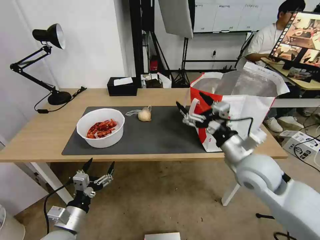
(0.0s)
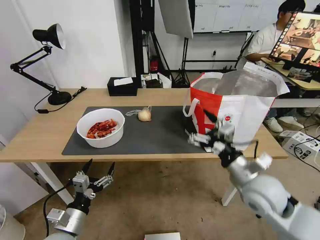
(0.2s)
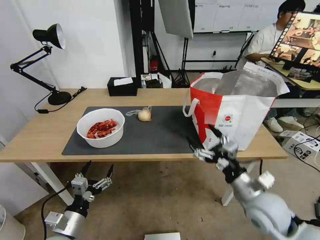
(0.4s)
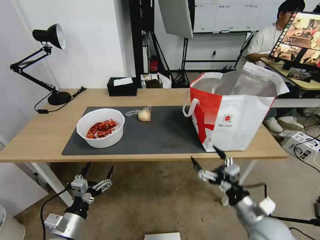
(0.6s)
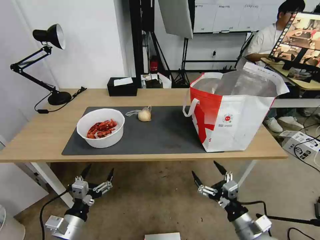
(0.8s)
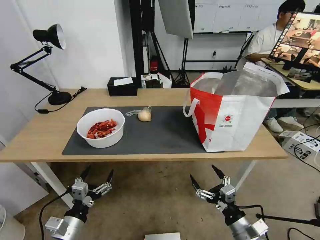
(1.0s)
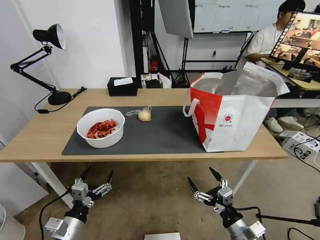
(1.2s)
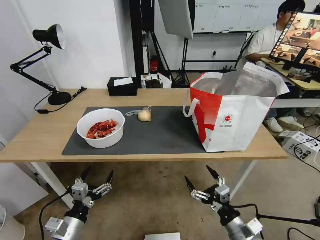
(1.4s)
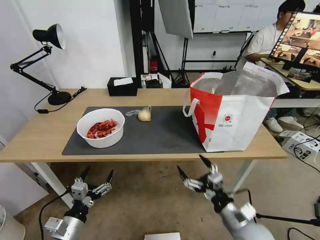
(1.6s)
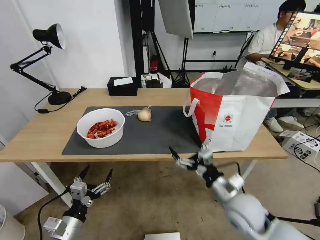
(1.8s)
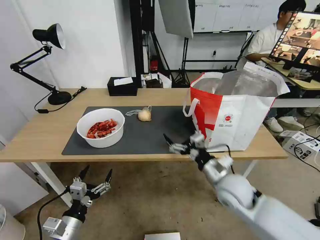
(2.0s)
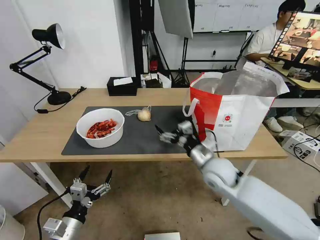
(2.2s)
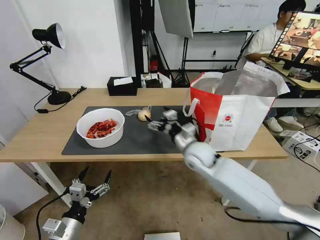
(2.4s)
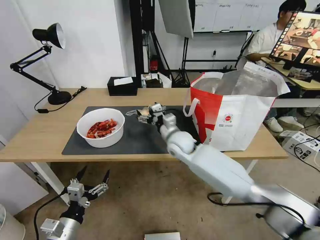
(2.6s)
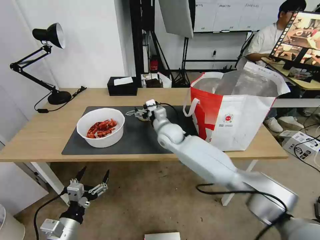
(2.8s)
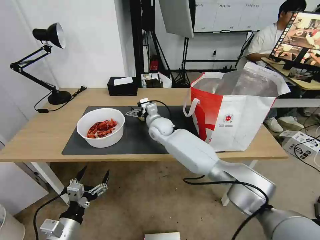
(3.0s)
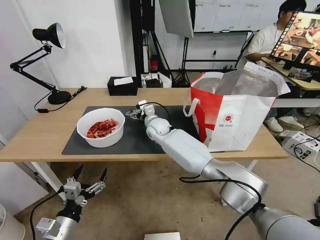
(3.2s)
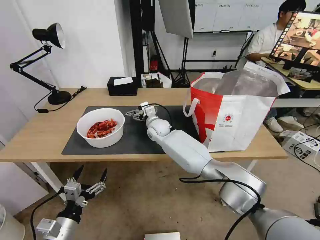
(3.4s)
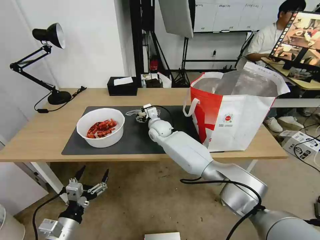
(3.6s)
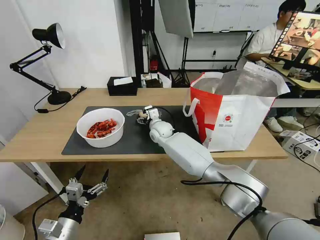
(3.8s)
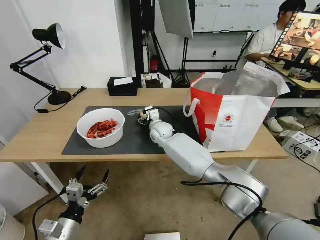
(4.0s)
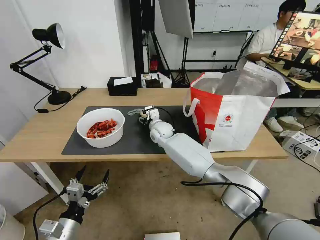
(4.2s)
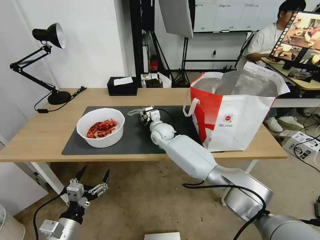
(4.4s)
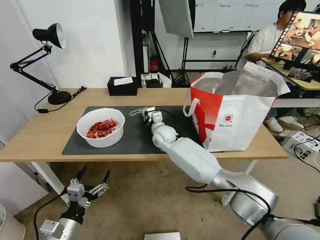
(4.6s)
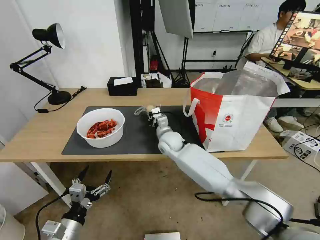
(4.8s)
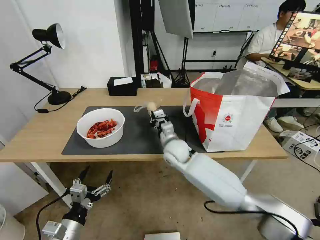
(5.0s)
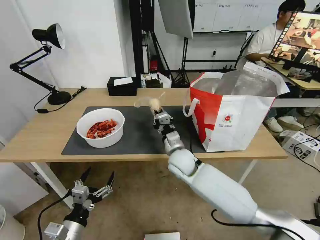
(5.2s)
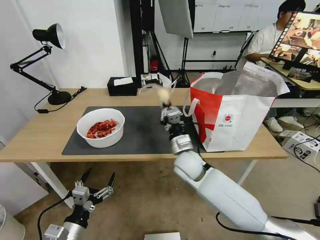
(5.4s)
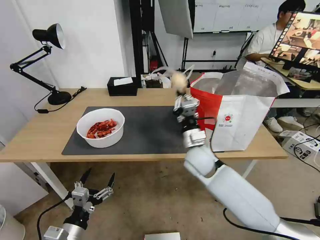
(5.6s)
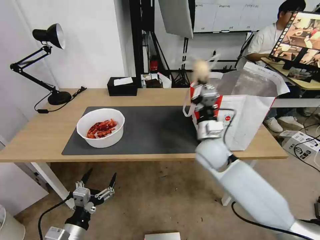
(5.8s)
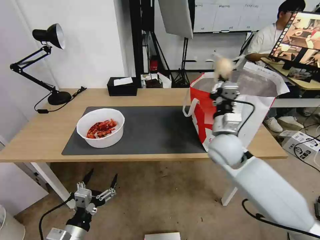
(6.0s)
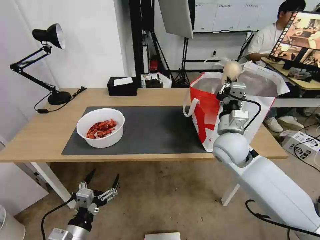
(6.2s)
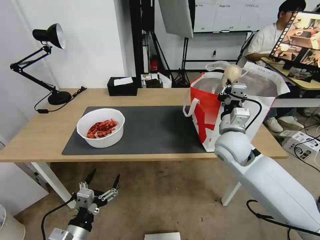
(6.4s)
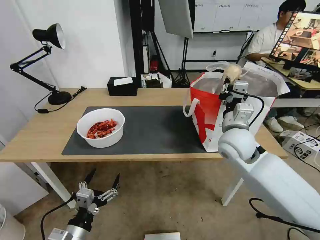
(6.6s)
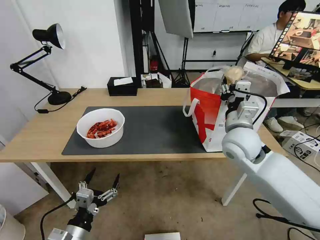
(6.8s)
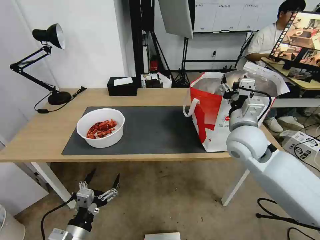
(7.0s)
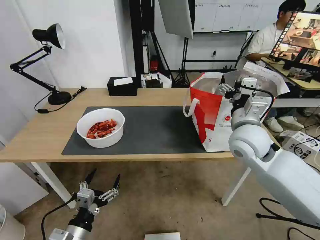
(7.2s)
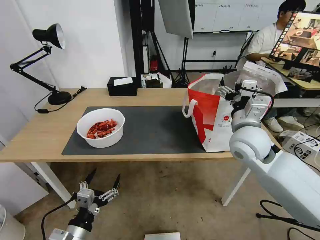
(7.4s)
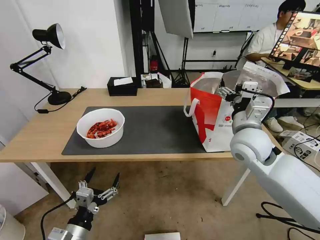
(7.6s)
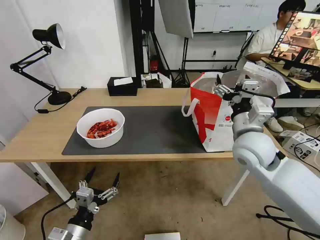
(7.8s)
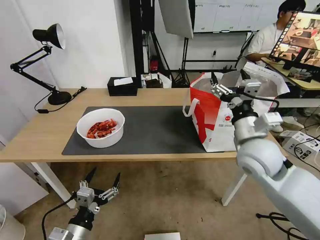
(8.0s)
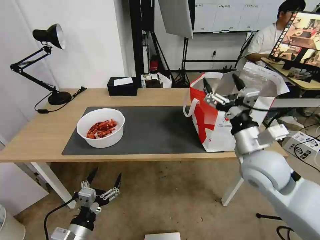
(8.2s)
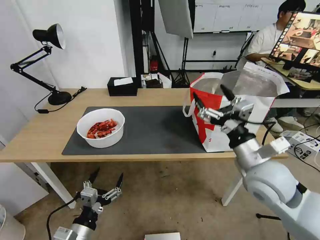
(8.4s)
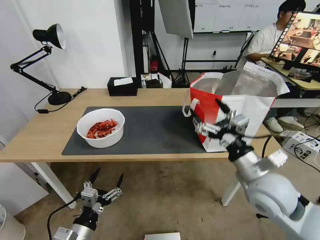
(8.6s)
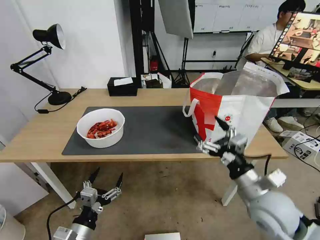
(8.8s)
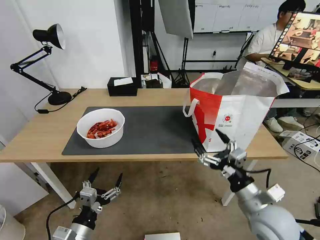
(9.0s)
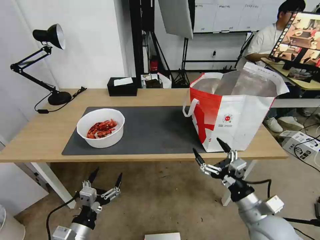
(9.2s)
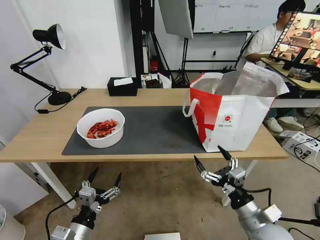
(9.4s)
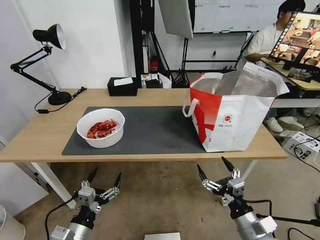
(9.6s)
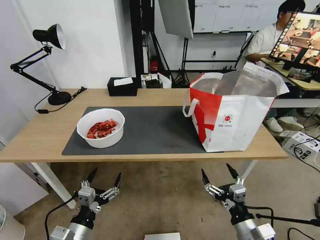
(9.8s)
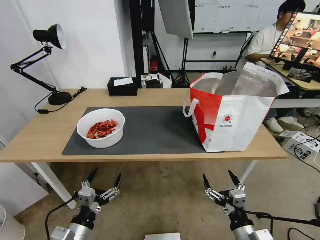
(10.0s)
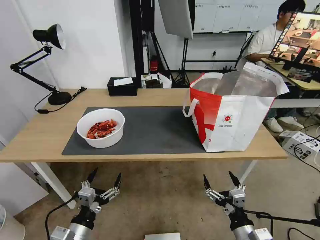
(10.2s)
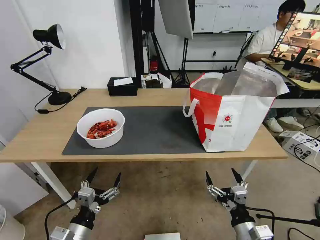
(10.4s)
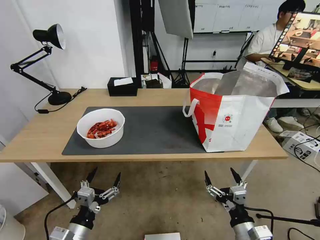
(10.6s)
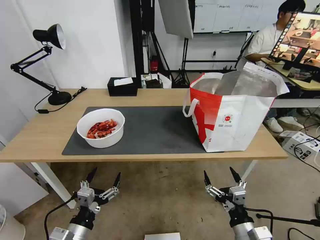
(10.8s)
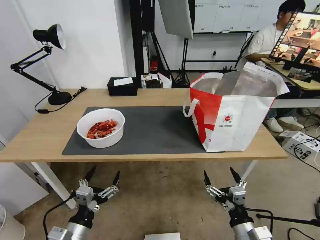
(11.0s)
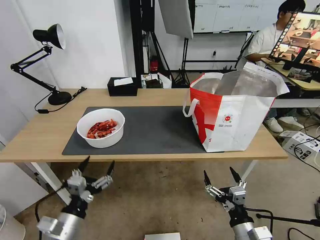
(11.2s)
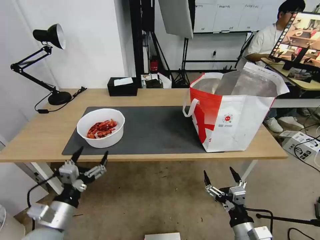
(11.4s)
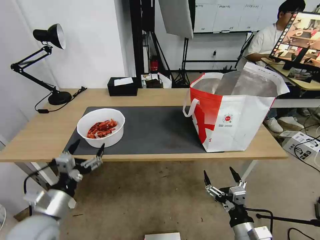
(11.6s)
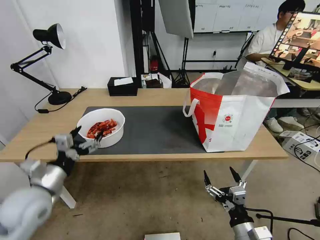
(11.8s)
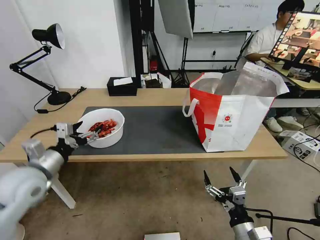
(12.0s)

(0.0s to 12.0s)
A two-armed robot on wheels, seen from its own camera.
Task of the whole recording: Pick up the trash from the table and place it into the takeout bag.
0.0s - 1.6s: The right gripper heads downward and backward, covering some 20 cm.
1.6s - 3.0s: The right gripper moves forward and to the left, about 40 cm.
3.0s - 4.4s: The right gripper closes up.
4.4s - 6.0s: The right gripper shifts about 25 cm to the right, backward and upward, and closes up.
6.0s - 7.6s: The right gripper is displaced to the right by about 5 cm, and opens up.
7.6s - 9.0s: The right gripper is displaced backward and downward by some 20 cm.
9.0s - 10.4s: The right gripper goes some 15 cm downward and backward.
10.4s - 12.0s: The left gripper moves forward, upward and to the left, approximately 25 cm.

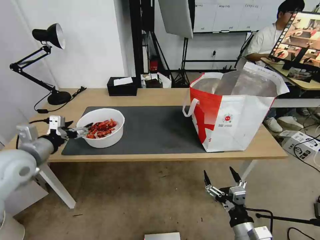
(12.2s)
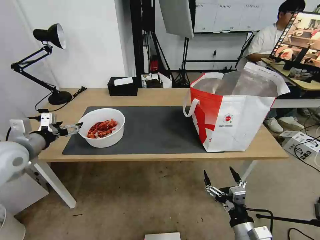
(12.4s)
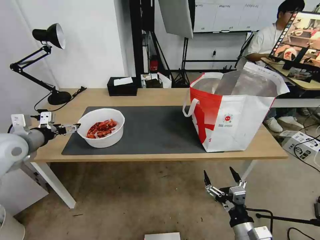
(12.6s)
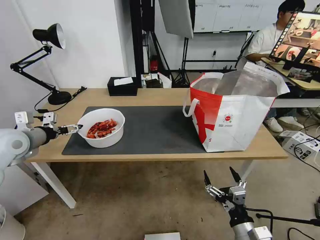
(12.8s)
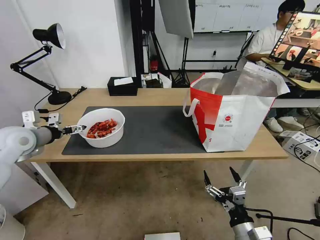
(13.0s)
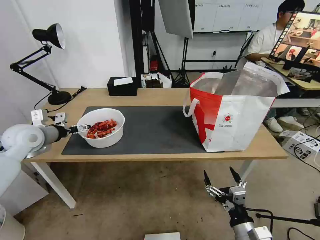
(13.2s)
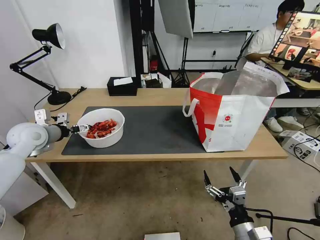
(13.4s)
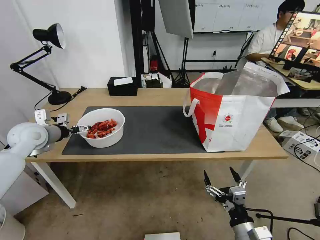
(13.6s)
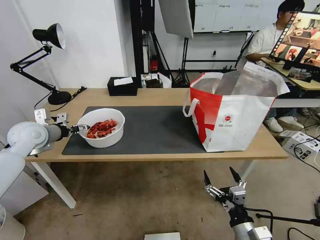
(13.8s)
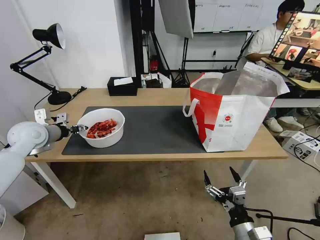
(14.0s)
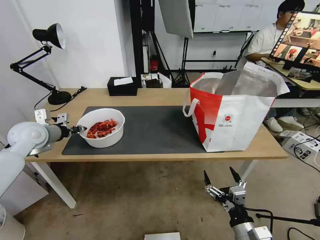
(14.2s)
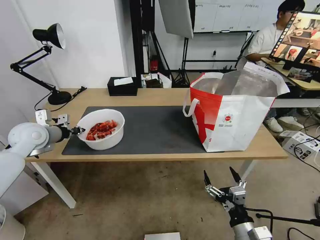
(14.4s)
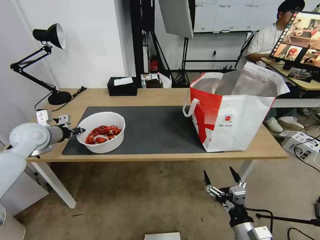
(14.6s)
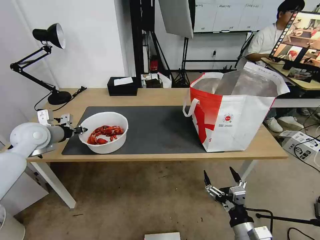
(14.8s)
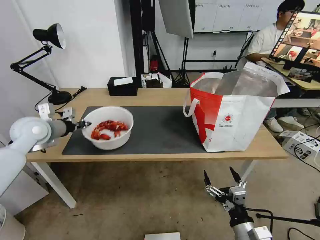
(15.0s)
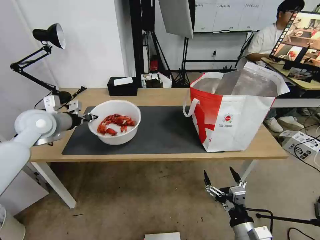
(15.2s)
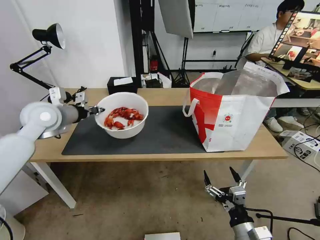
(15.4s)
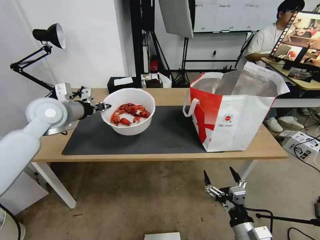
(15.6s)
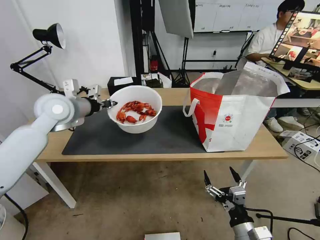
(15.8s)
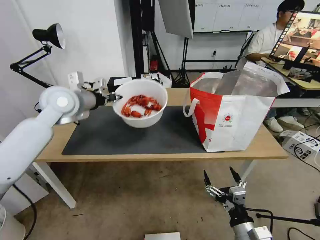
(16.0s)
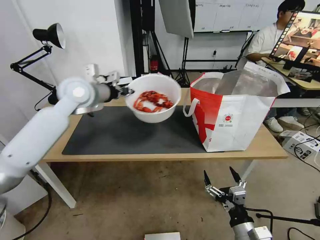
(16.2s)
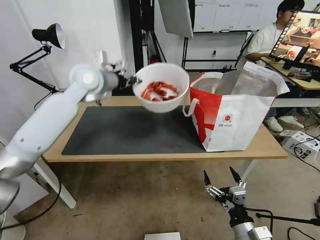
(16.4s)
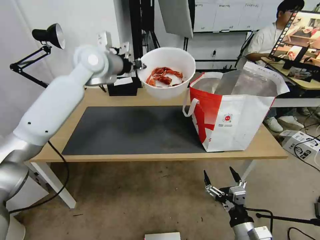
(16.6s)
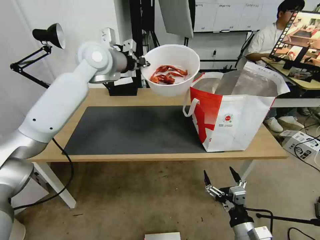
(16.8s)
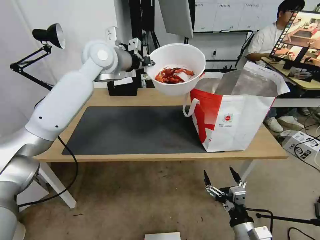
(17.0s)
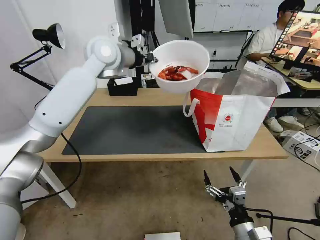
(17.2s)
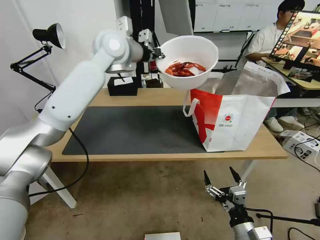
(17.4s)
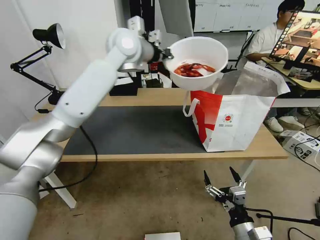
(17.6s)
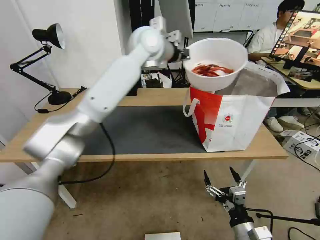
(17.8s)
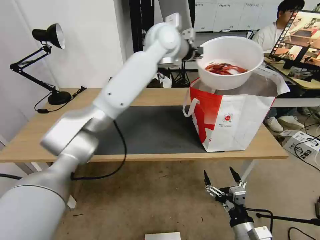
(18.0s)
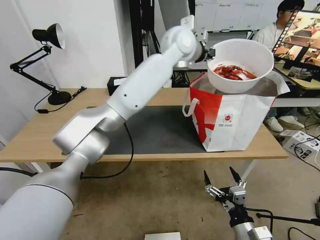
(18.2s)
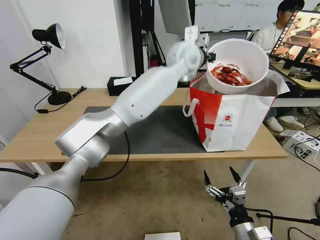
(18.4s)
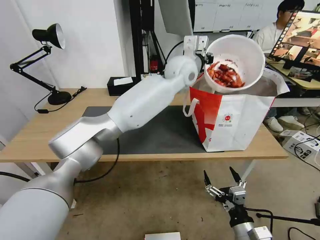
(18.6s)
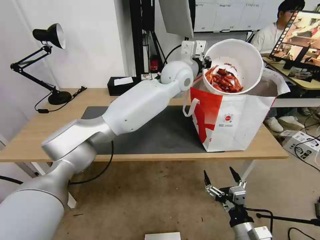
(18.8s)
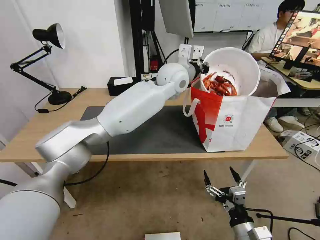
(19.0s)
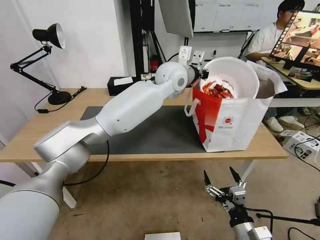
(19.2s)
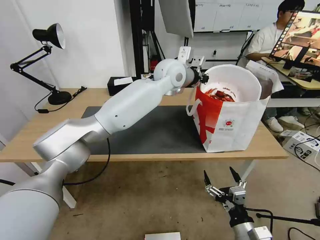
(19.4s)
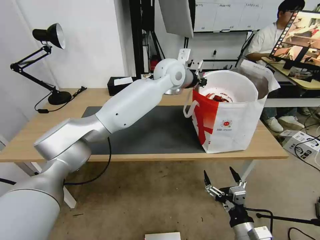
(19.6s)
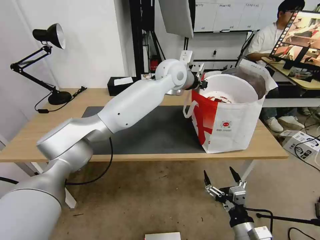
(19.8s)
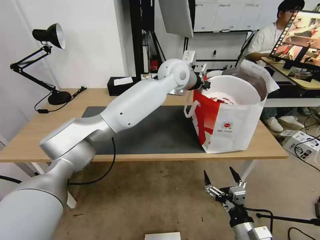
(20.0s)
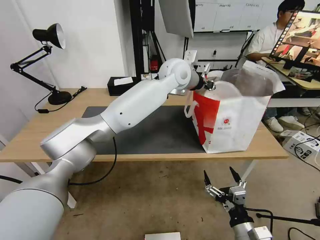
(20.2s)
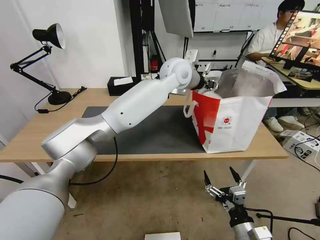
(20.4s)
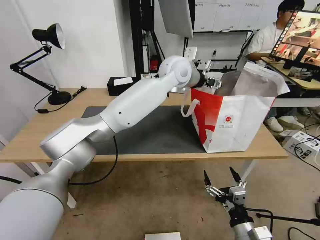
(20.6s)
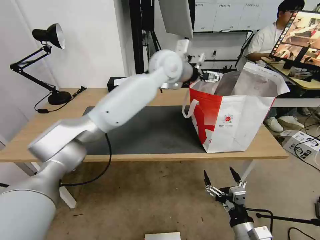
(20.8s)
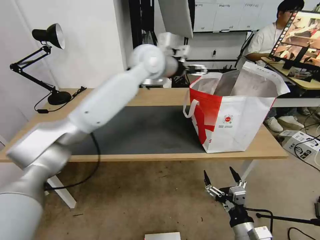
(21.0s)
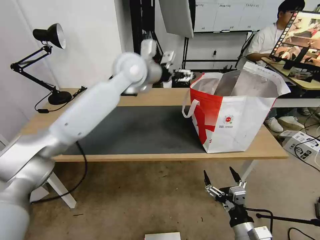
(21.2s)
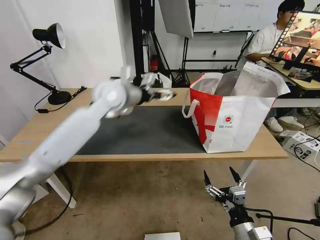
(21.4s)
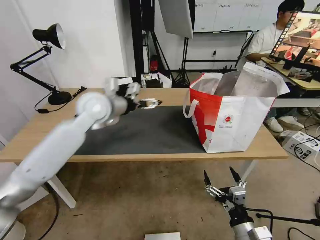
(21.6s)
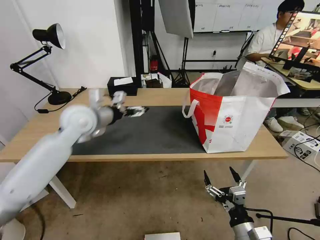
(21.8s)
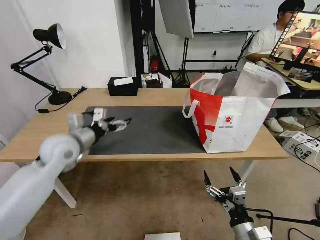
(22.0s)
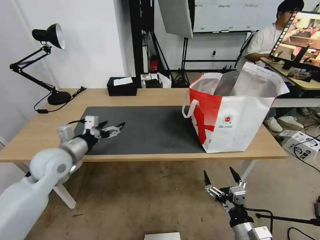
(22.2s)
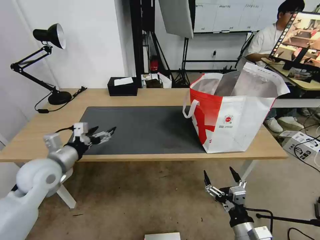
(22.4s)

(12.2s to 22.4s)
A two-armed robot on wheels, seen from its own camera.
Task of the whole recording: Pick up the trash from the table and place it into the takeout bag.
12.2s - 13.6s: The left gripper goes about 10 cm forward.
13.6s - 15.2s: The left gripper moves approximately 5 cm, and closes.
15.2s - 16.6s: The left gripper shifts roughly 25 cm to the right, upward and forward.
16.6s - 18.0s: The left gripper goes some 20 cm to the right.
18.0s - 19.4s: The left gripper goes approximately 10 cm downward.
19.4s - 21.0s: The left gripper goes some 5 cm to the left, and opens.
21.0s - 22.4s: The left gripper moves to the left, downward and backward, roughly 40 cm.
